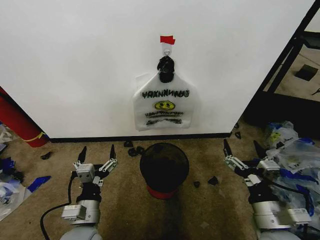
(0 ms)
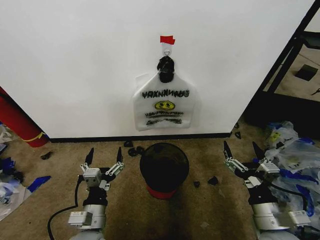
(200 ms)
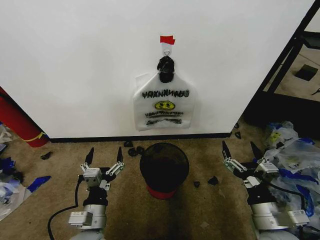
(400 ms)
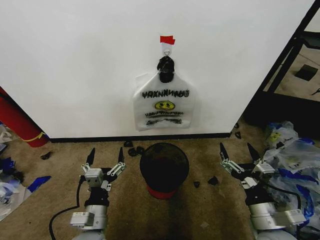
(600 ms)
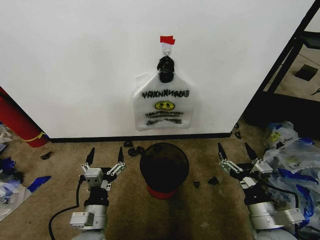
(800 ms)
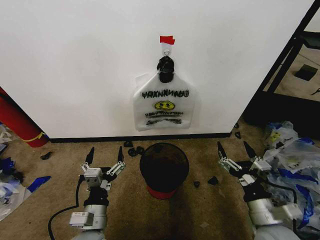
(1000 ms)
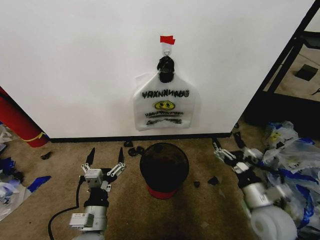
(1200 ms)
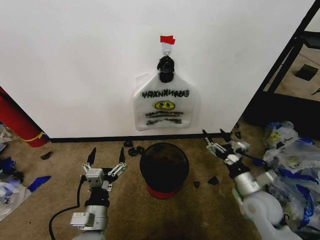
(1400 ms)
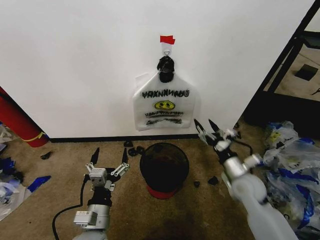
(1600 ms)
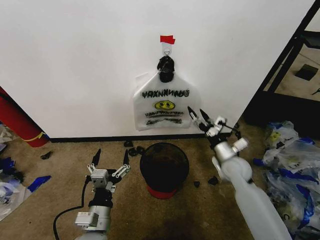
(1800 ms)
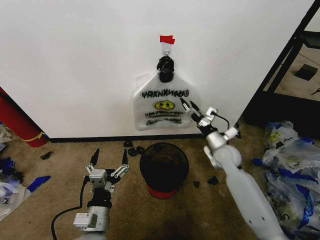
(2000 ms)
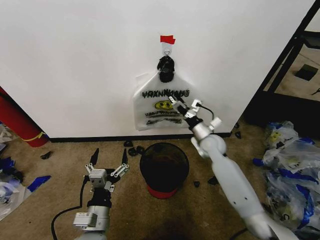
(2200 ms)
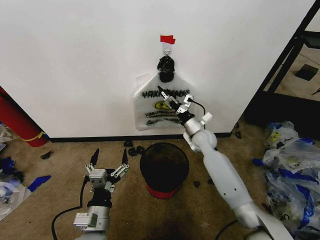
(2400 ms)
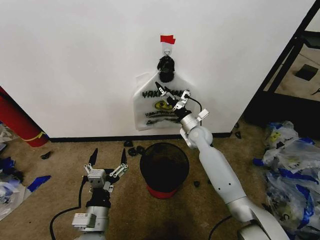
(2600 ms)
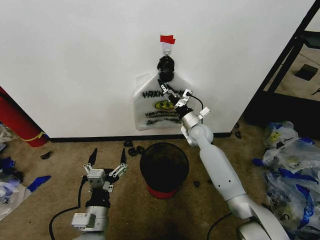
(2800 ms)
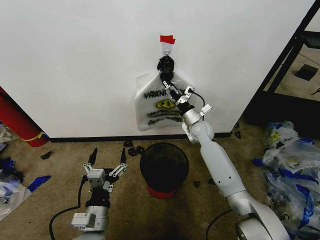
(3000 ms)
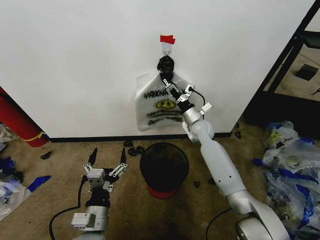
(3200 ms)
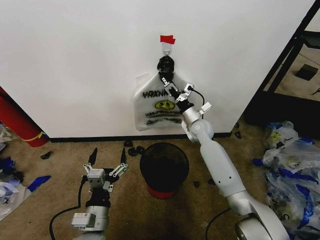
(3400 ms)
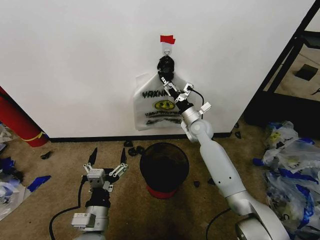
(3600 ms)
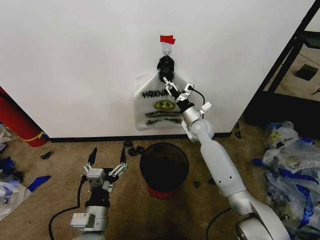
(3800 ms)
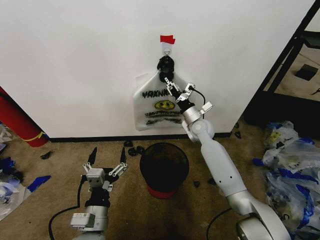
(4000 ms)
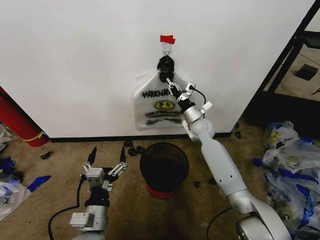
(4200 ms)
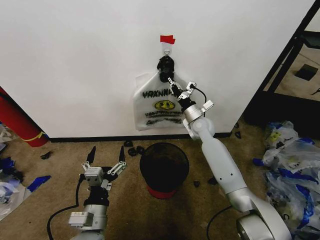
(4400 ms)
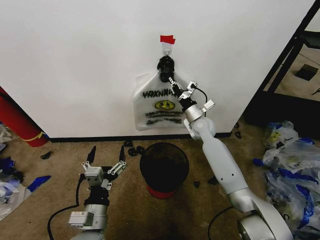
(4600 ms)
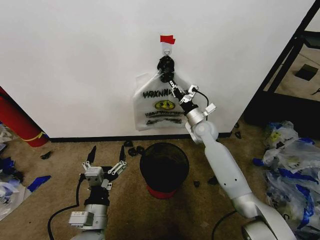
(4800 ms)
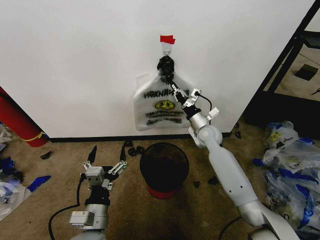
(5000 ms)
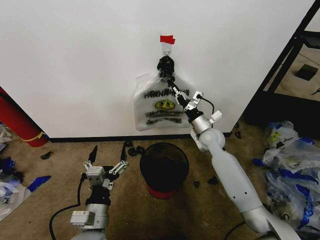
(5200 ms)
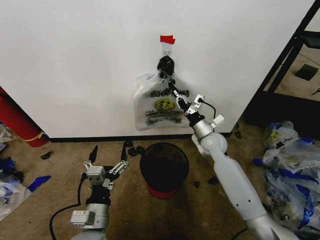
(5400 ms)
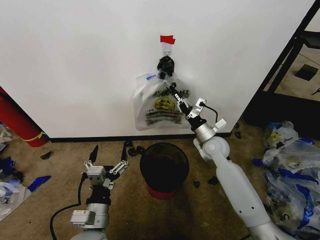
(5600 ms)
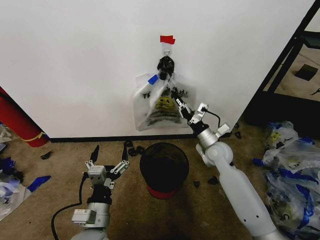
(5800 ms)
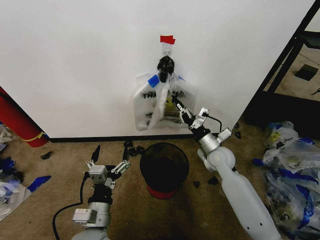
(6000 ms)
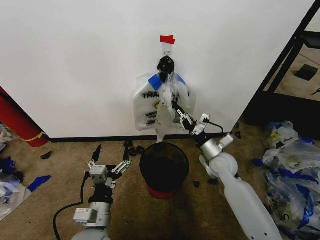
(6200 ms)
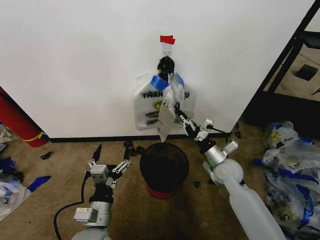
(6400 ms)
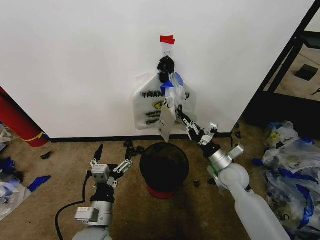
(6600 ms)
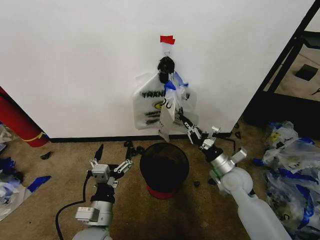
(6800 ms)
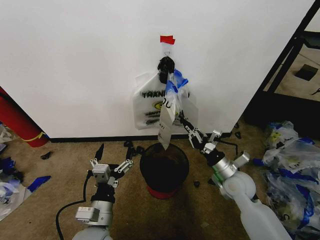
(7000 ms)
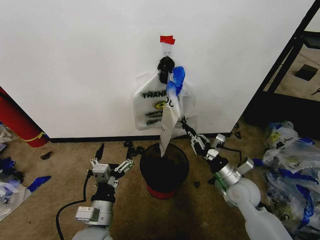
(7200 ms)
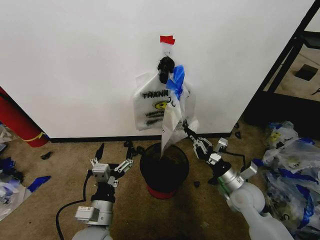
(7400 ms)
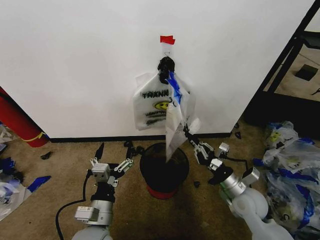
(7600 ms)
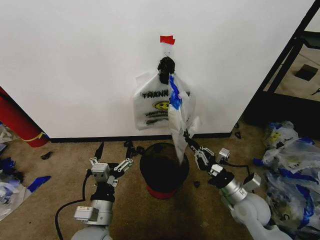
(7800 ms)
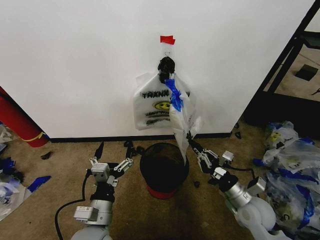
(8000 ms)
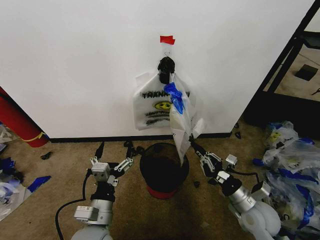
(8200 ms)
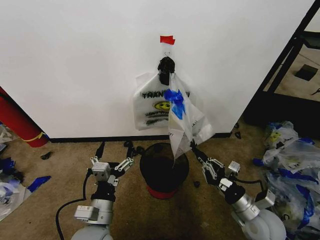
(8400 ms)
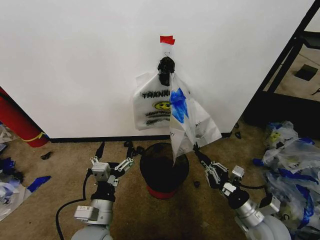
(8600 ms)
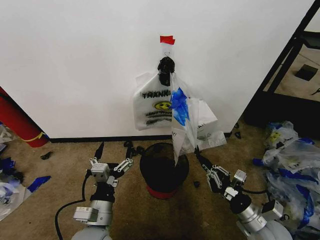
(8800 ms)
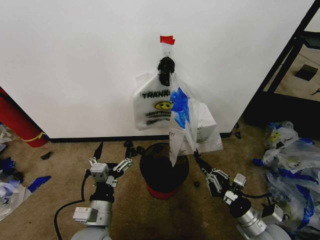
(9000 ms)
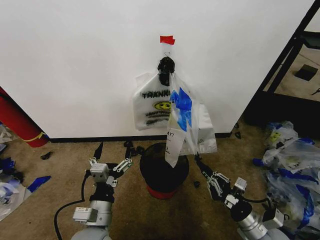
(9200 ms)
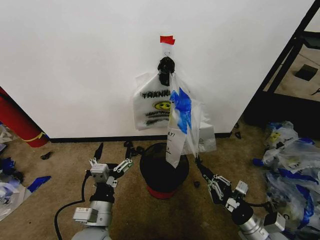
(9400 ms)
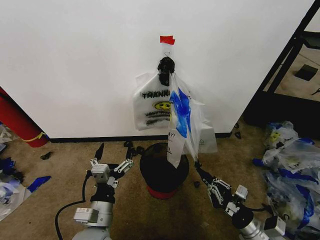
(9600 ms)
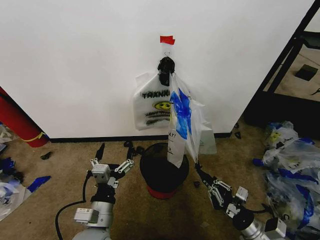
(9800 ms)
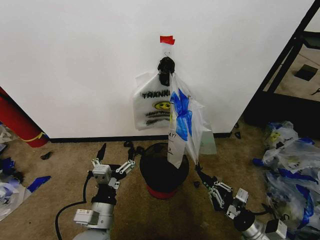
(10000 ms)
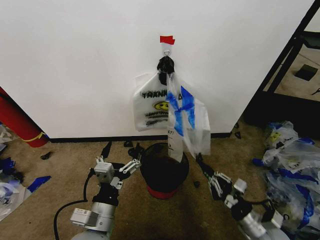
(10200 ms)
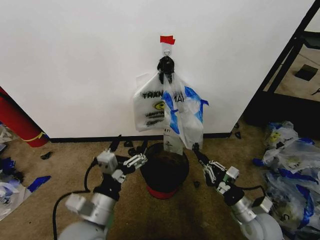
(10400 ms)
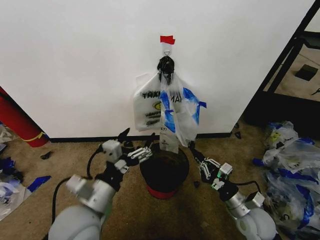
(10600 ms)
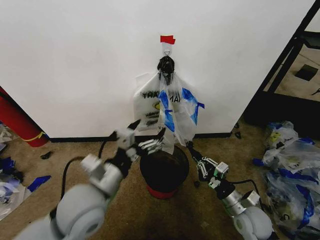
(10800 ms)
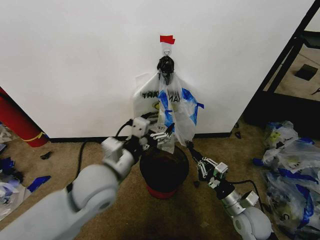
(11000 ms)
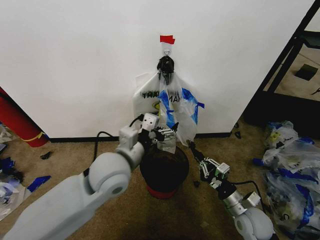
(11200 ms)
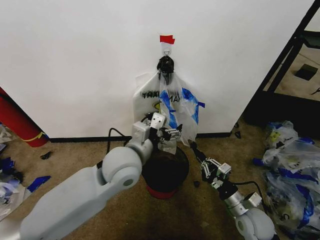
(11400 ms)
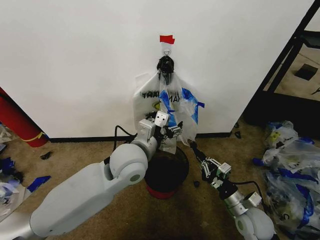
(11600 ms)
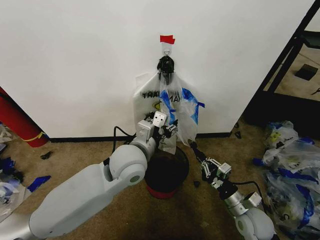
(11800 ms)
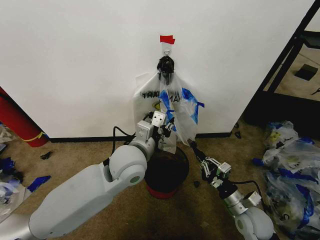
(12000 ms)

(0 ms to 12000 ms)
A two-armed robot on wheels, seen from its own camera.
Task of the whole recording: Pick up the garbage bag from the wall and place it over the trash bin.
1600 ms - 3000 ms: The right gripper shifts some 25 cm forward and to the left.
3000 ms - 4400 ms: The right gripper closes its fingers.
4400 ms - 6000 ms: The right gripper moves backward, about 15 cm.
6000 ms - 7600 ms: The right gripper moves backward, approximately 15 cm.
7600 ms - 9000 ms: The right gripper travels backward by some 10 cm.
9000 ms - 10400 ms: The left gripper travels upward by about 5 cm.
10400 ms - 12000 ms: The left gripper travels forward, to the right and upward by some 20 cm, and closes up.

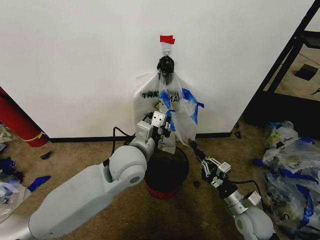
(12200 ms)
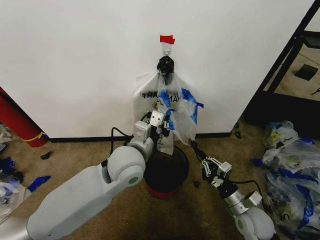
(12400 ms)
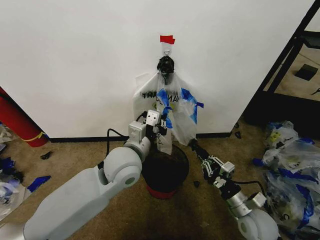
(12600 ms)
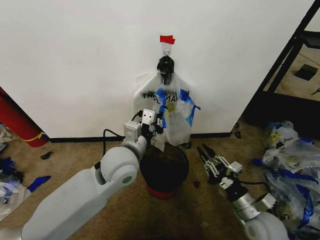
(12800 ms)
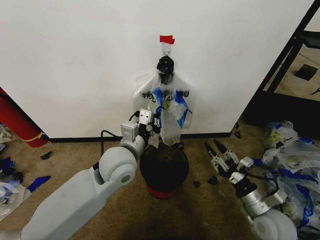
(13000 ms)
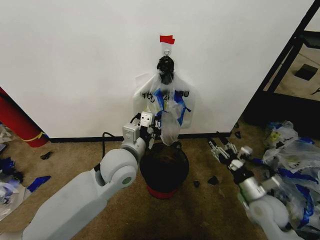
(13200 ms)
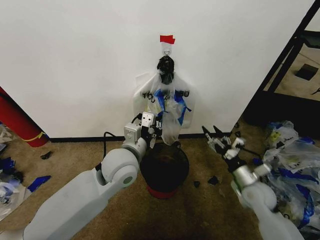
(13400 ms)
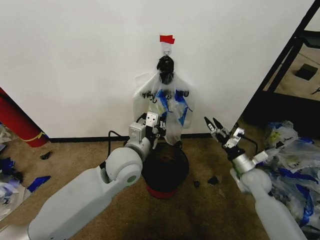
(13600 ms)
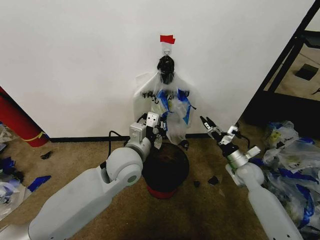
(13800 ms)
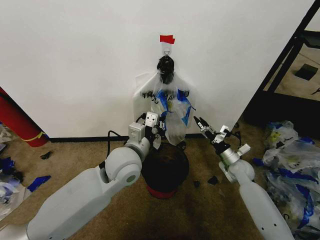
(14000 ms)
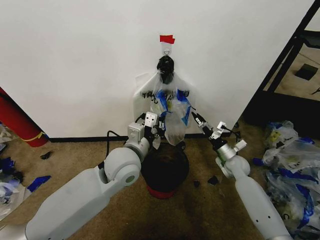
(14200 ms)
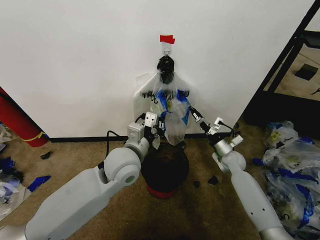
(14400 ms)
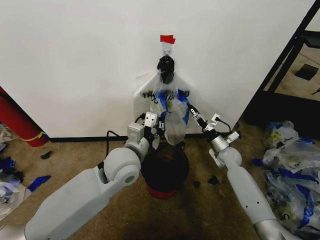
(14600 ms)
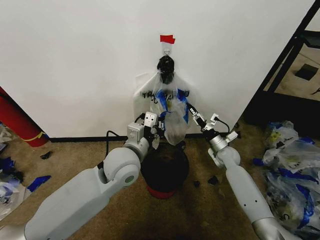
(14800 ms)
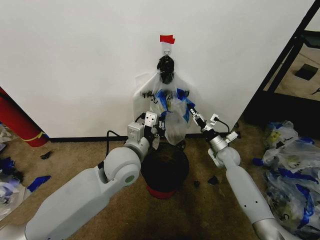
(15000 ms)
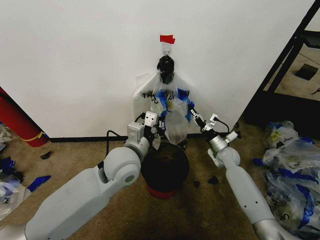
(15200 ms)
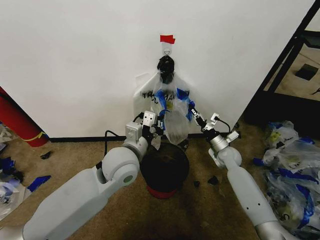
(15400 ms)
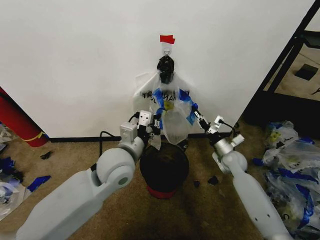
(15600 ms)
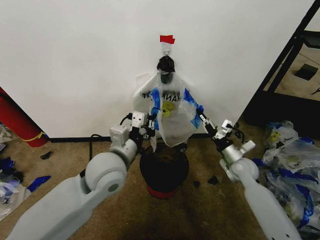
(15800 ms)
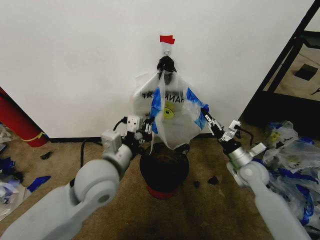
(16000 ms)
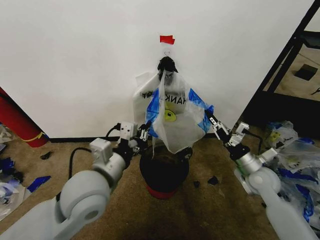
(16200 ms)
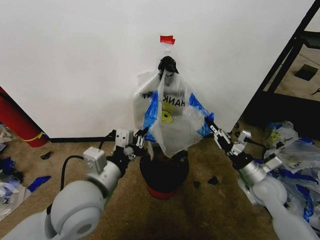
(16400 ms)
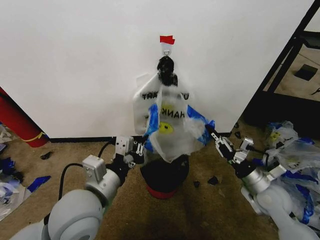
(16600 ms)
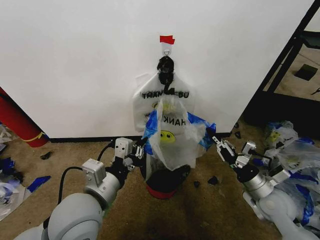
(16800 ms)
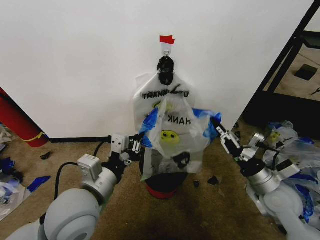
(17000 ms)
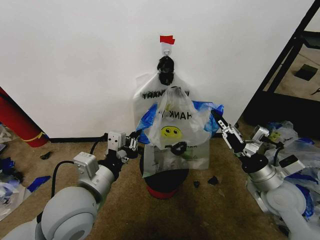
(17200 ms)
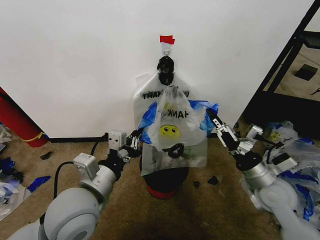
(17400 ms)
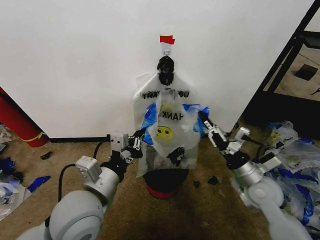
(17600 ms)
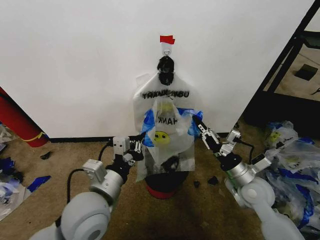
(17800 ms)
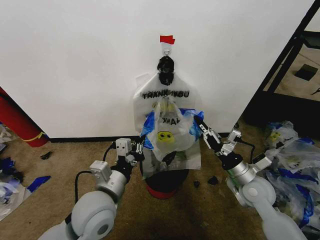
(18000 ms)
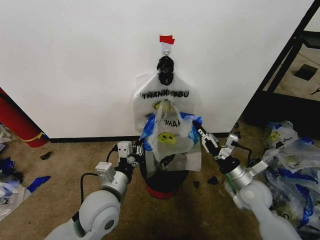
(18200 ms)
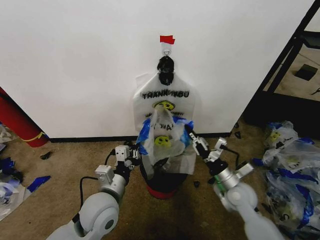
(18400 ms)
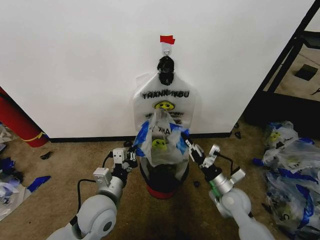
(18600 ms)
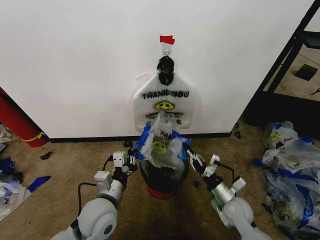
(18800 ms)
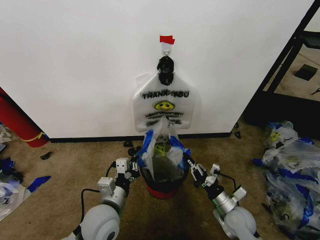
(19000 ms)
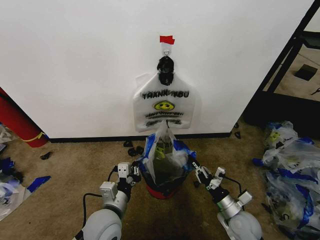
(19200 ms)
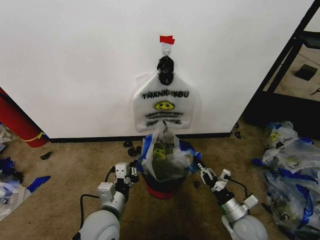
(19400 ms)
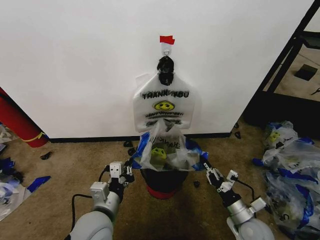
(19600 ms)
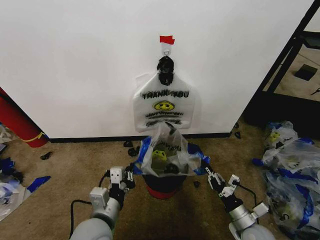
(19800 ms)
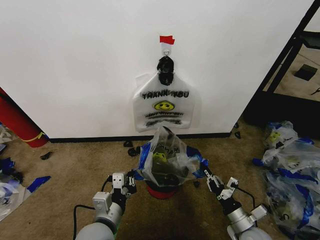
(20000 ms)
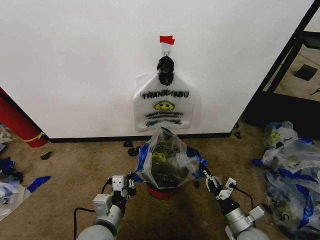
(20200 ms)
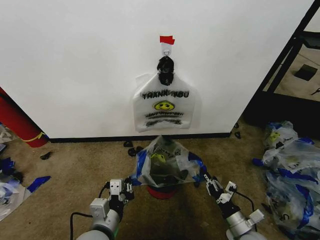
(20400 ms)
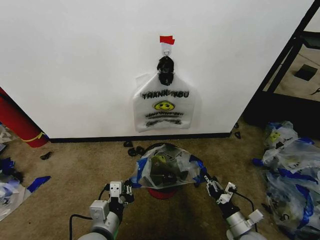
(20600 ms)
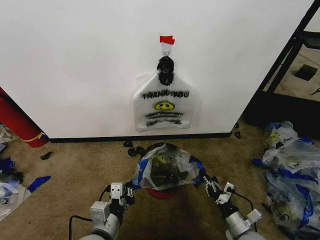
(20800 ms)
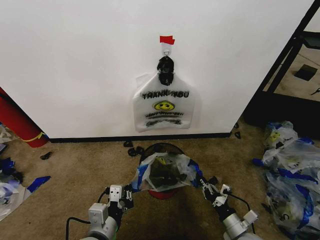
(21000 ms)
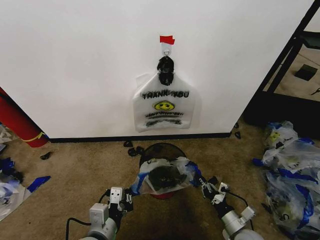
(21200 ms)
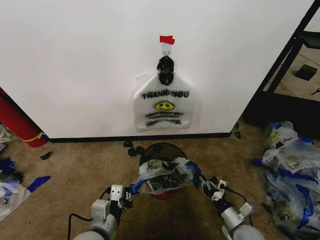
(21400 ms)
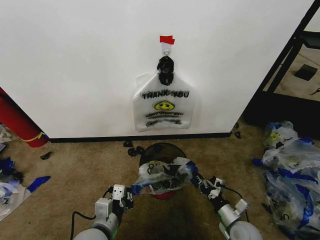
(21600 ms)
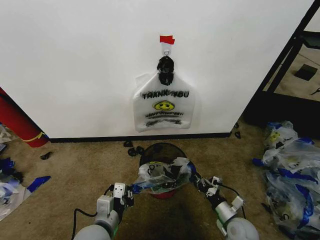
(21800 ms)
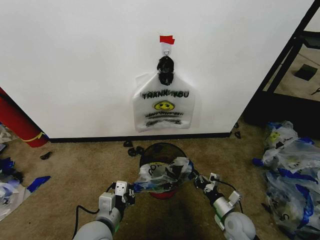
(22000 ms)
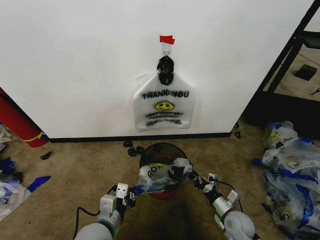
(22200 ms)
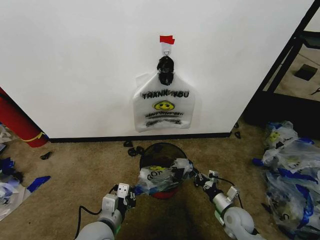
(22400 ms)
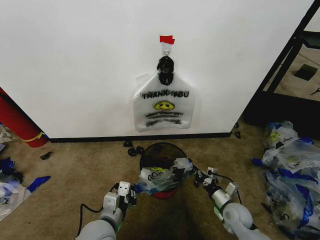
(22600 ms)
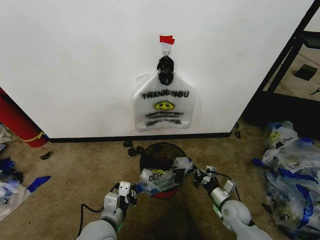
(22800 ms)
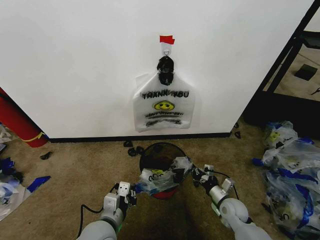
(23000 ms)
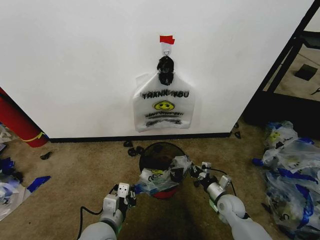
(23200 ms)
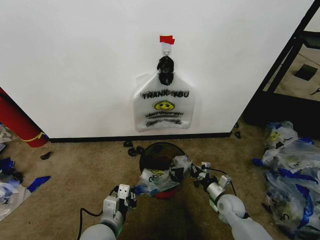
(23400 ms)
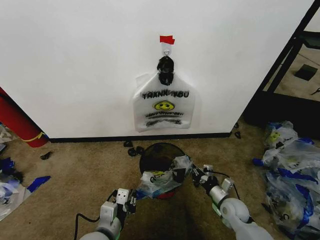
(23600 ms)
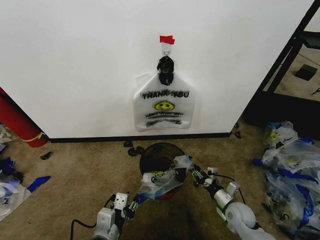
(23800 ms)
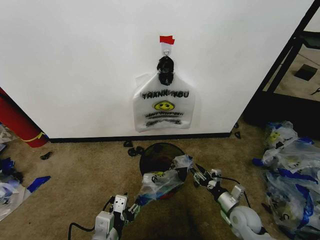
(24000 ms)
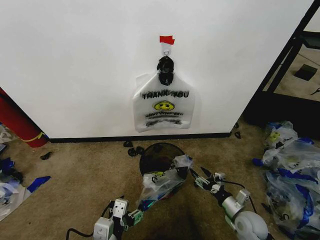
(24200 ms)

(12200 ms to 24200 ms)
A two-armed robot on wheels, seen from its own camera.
Task of the whole recording: Pick up the garbage bag from the wall and place it over the trash bin.
12200 ms - 13800 ms: The right gripper is displaced forward by about 15 cm, and opens.
13800 ms - 15200 ms: The right gripper is displaced forward and to the left by some 10 cm, and closes its fingers.
15200 ms - 16600 ms: The left gripper is displaced backward and to the left by approximately 15 cm; the right gripper goes some 20 cm backward.
16600 ms - 18200 ms: The left gripper travels downward by some 10 cm. Meanwhile the right gripper shifts by approximately 5 cm.
18200 ms - 19800 ms: The left gripper heads backward, covering approximately 5 cm. The right gripper travels downward and backward by some 15 cm.
19800 ms - 21200 ms: The grippers stay close to where they were, moving slightly.
21200 ms - 22600 ms: The right gripper is displaced forward by some 10 cm. Meanwhile the left gripper shifts by approximately 5 cm.
22600 ms - 24200 ms: The right gripper opens; the left gripper shifts some 10 cm backward, and opens.
